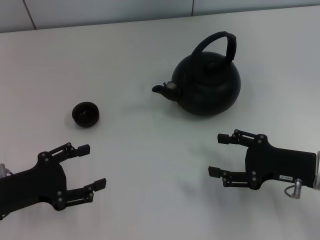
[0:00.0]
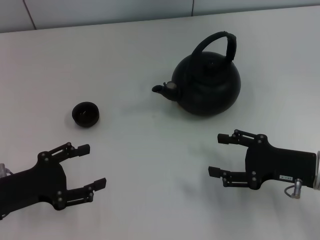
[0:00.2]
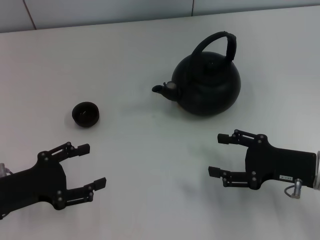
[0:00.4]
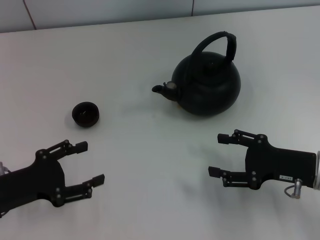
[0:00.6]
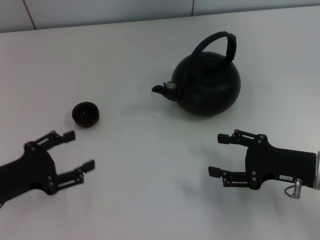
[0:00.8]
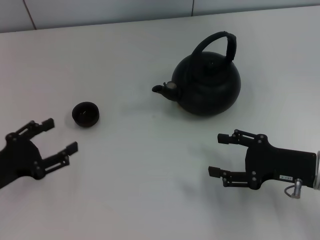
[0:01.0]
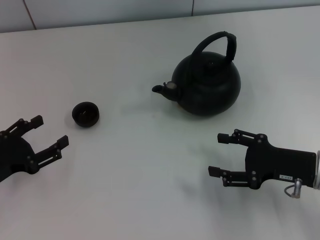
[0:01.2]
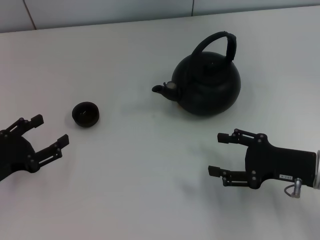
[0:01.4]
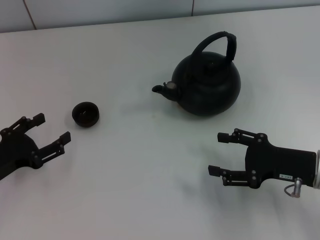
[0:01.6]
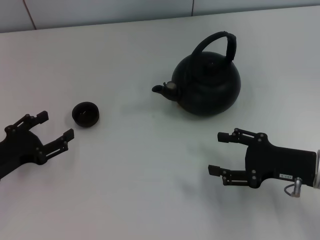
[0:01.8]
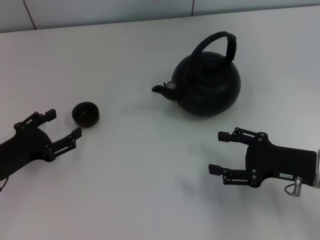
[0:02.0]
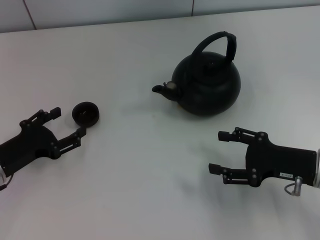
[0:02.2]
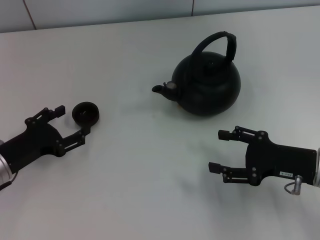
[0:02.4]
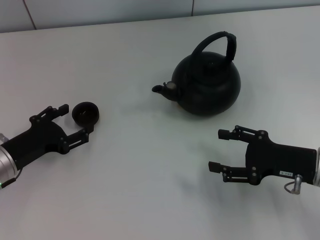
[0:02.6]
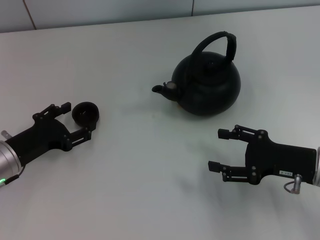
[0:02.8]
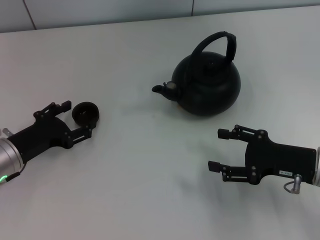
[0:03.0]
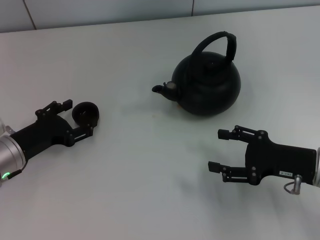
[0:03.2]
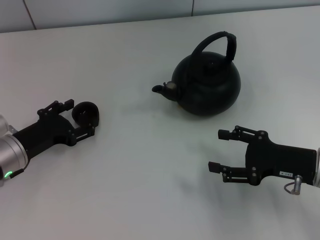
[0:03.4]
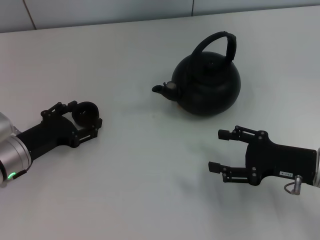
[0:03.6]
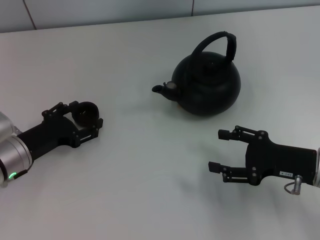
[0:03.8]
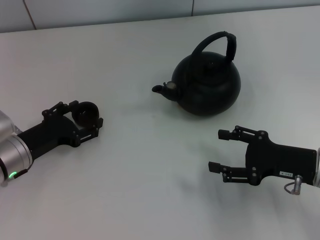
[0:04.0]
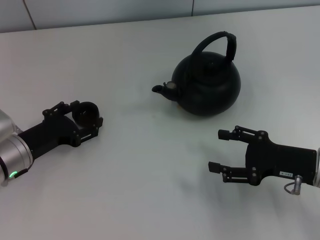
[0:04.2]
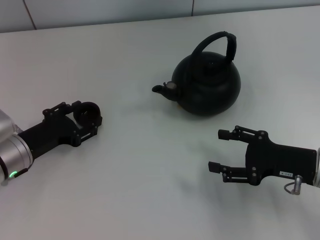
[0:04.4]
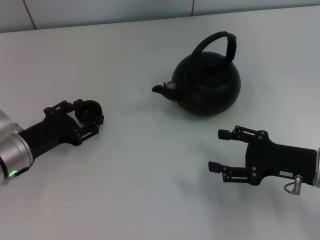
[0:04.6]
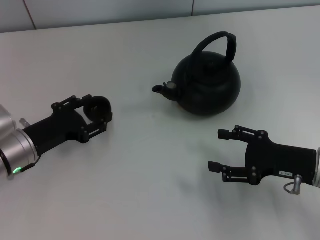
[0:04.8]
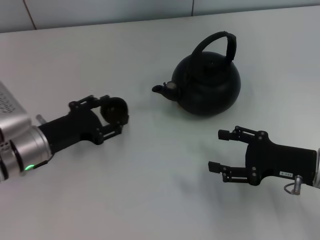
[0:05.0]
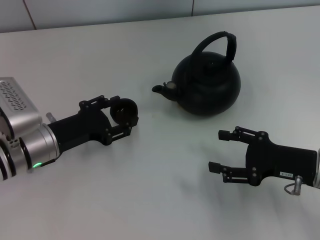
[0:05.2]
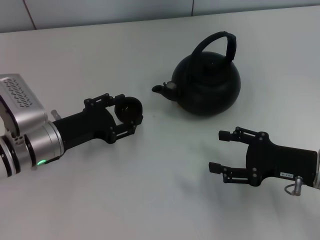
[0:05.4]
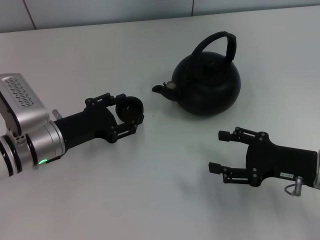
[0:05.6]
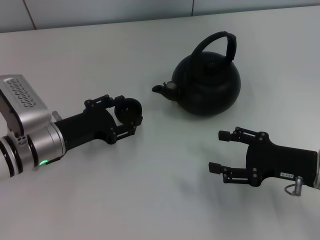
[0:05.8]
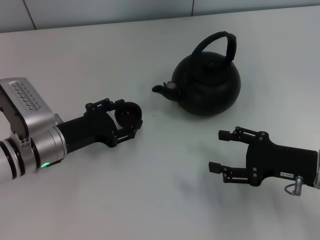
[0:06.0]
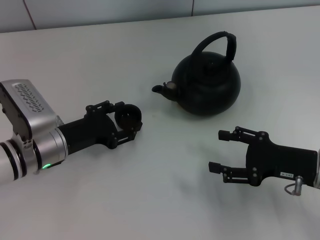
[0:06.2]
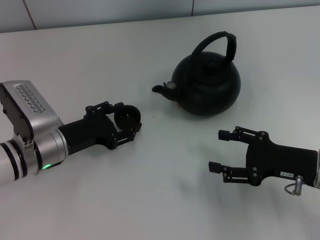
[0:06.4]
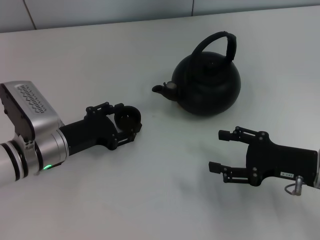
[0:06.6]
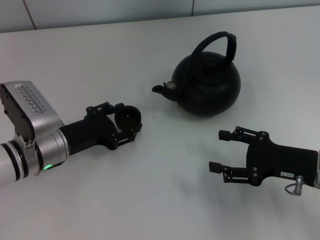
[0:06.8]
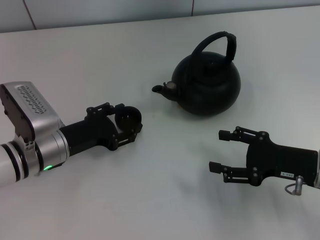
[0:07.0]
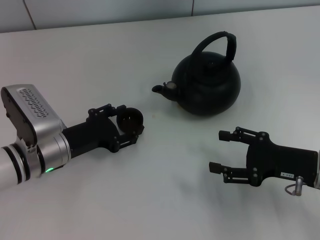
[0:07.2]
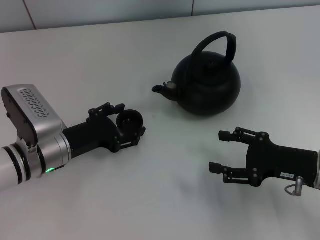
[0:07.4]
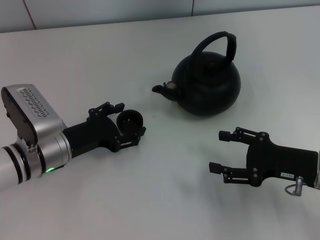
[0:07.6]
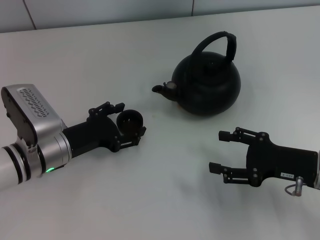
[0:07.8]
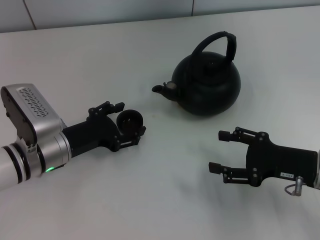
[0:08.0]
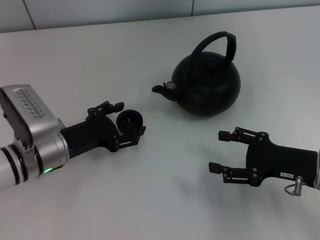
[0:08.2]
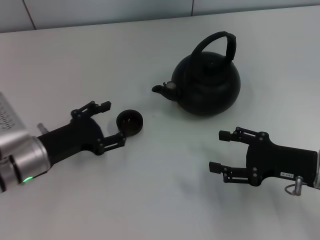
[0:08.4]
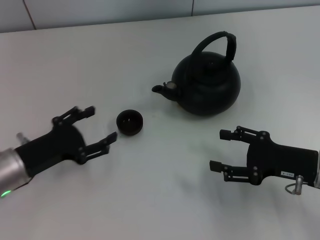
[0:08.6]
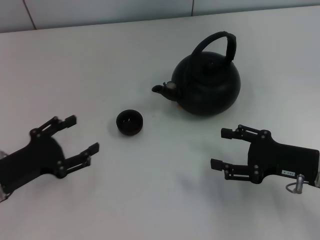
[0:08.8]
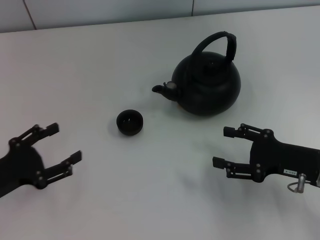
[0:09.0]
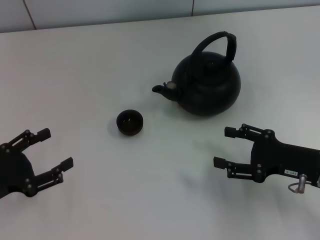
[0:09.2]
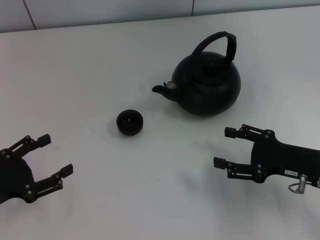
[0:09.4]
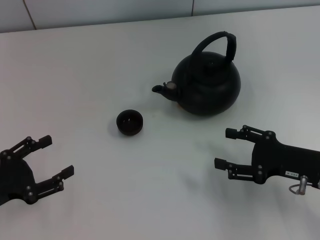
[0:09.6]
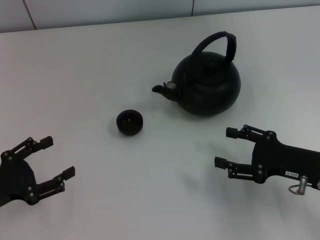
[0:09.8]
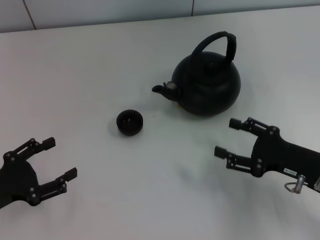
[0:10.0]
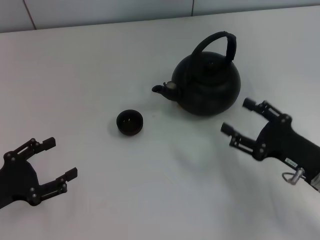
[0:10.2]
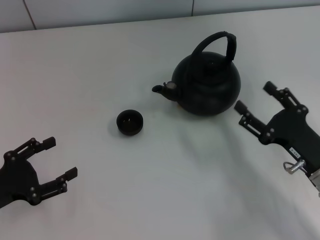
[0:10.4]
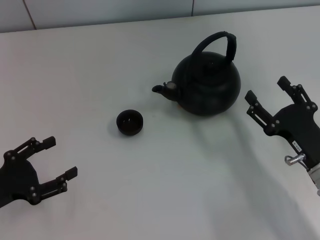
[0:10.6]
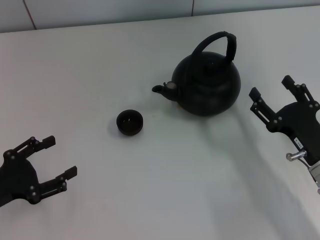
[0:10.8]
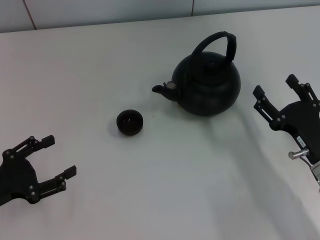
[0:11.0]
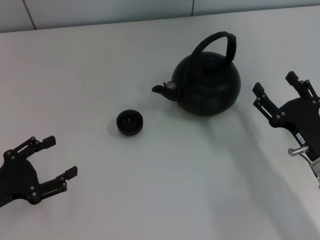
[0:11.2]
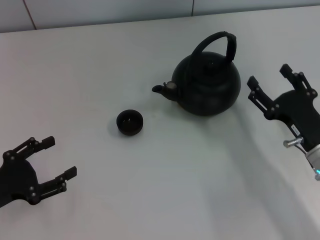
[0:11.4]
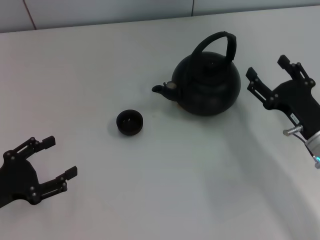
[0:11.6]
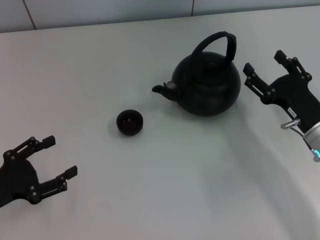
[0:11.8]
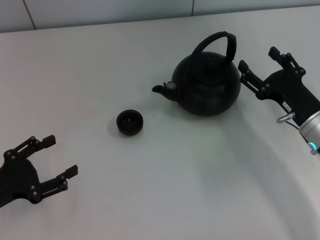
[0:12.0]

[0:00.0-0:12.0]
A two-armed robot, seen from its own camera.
Task of the whole recording: Grasp the handle of the teapot with one hand and pour tea into the teacup.
Step, 0:00.0 to 0:04.6: Pick up the teacup with the left gripper.
Step, 0:04.8 to 0:08.4: Place the teacup in the center of view with the left gripper.
0:01.6 to 0:03.0: The left gripper shifts by roughly 5 cm.
0:03.0 to 0:04.4: The left gripper closes its fingers.
0:04.4 to 0:06.0: The left gripper moves to the right, approximately 5 cm.
0:06.0 to 0:07.6: The left gripper opens up.
0:07.6 to 0:09.0: The left gripper is displaced to the left and backward by roughly 15 cm, and opens up.
0:10.4 to 0:12.0: The right gripper is displaced forward by about 5 cm.

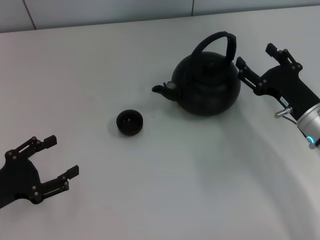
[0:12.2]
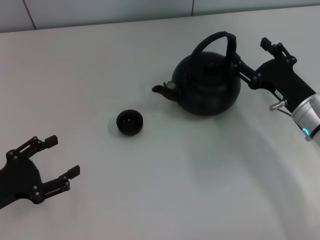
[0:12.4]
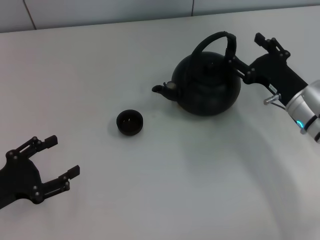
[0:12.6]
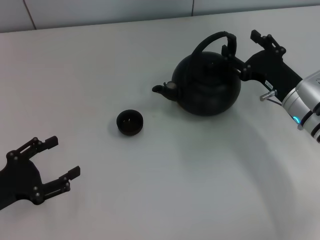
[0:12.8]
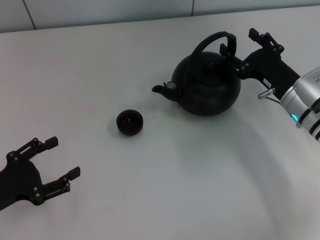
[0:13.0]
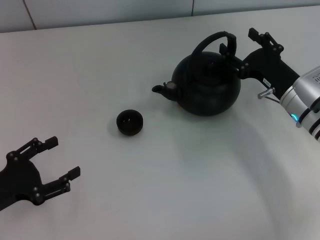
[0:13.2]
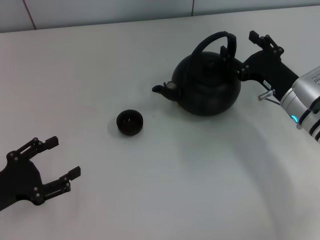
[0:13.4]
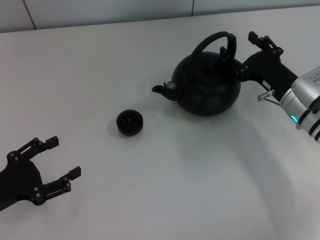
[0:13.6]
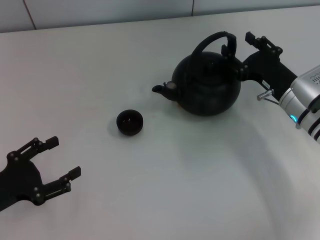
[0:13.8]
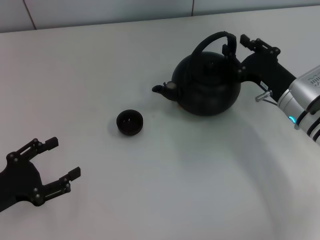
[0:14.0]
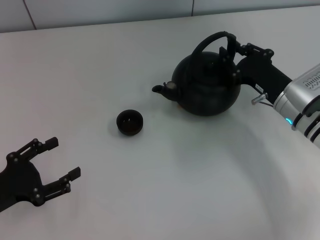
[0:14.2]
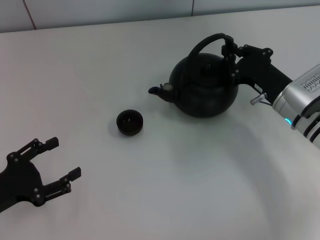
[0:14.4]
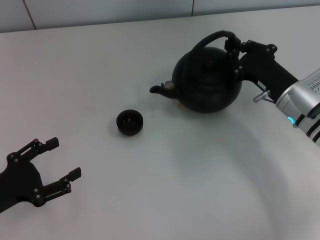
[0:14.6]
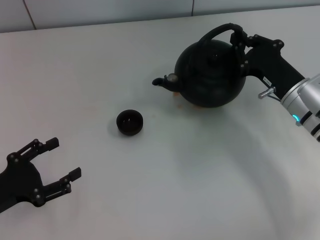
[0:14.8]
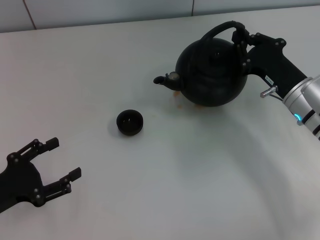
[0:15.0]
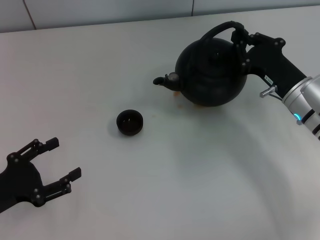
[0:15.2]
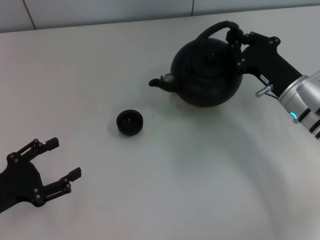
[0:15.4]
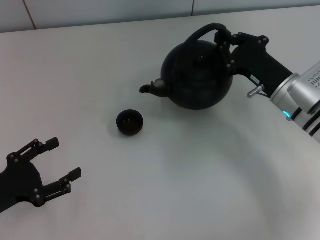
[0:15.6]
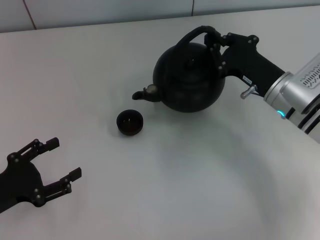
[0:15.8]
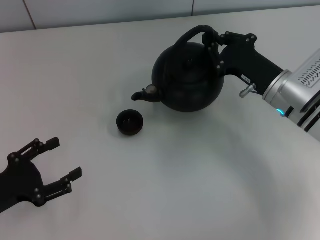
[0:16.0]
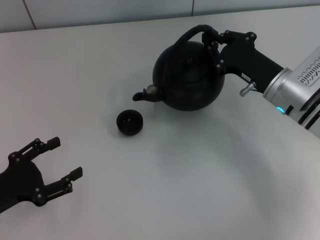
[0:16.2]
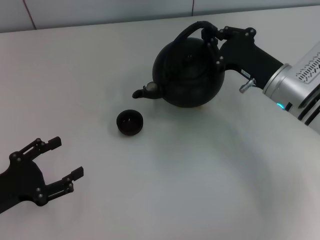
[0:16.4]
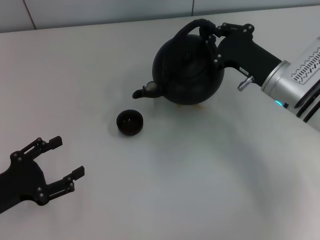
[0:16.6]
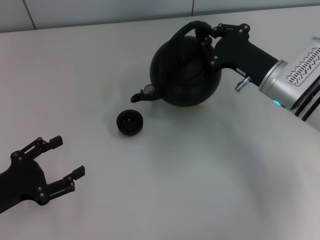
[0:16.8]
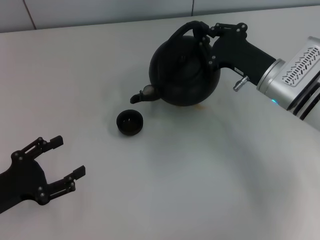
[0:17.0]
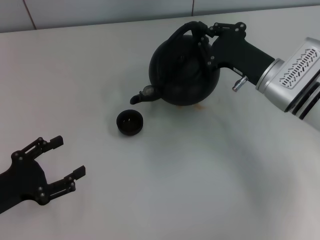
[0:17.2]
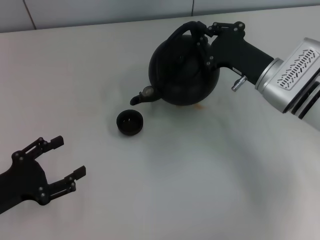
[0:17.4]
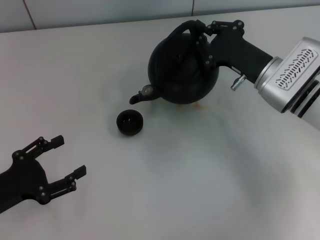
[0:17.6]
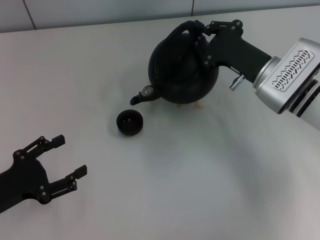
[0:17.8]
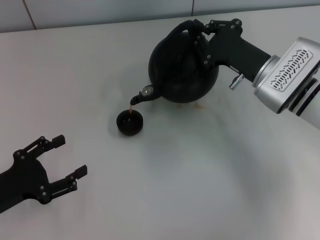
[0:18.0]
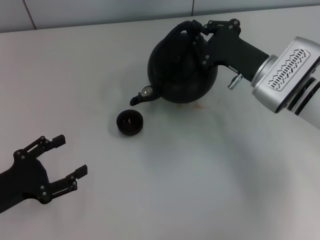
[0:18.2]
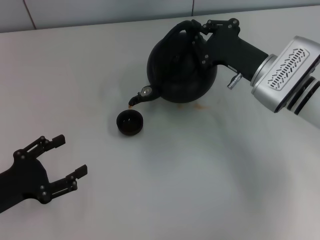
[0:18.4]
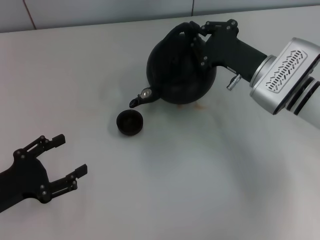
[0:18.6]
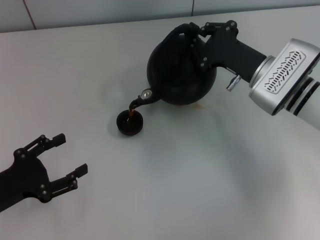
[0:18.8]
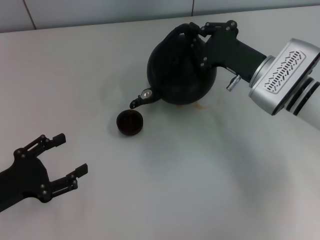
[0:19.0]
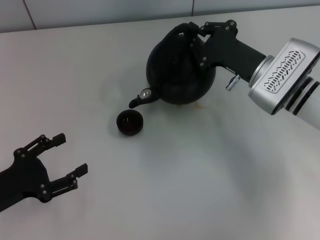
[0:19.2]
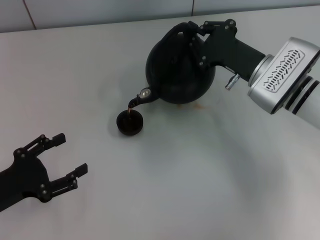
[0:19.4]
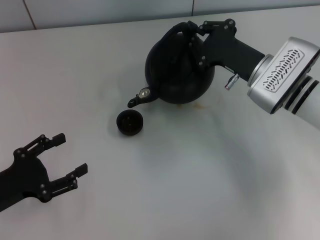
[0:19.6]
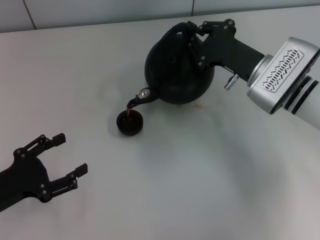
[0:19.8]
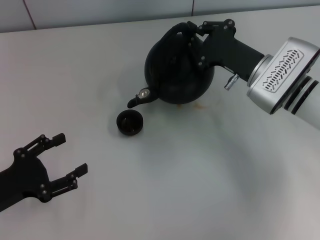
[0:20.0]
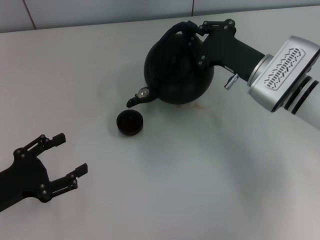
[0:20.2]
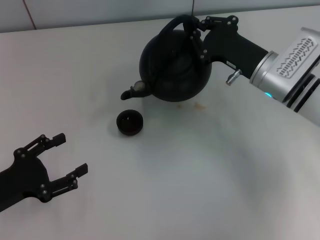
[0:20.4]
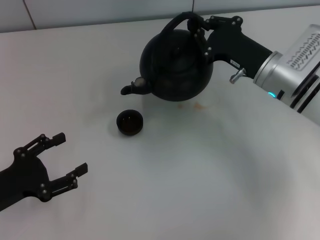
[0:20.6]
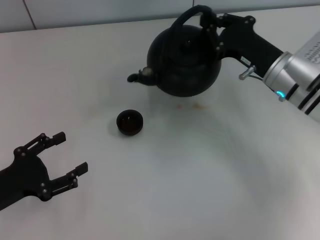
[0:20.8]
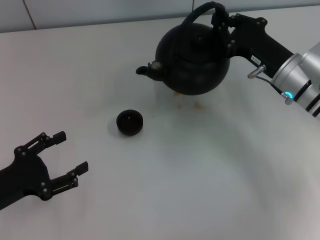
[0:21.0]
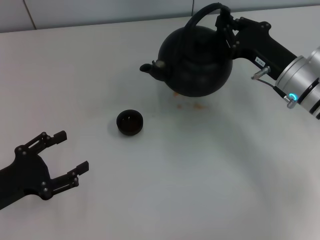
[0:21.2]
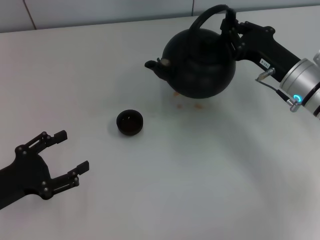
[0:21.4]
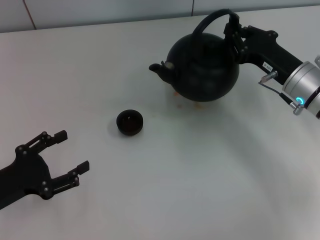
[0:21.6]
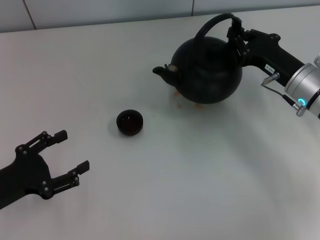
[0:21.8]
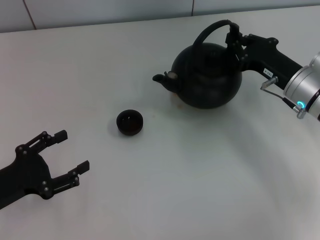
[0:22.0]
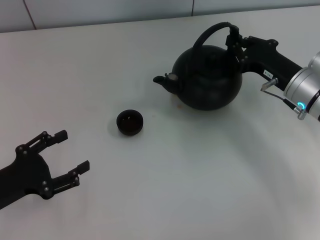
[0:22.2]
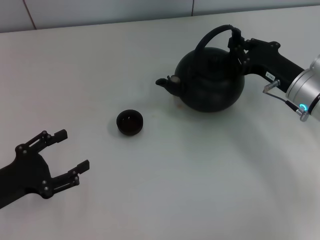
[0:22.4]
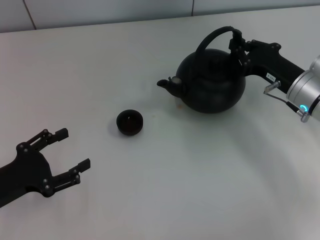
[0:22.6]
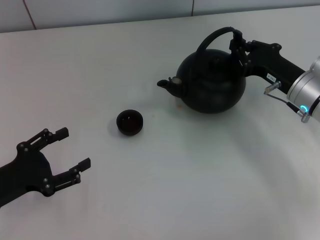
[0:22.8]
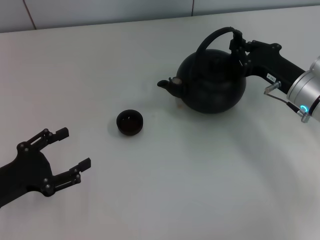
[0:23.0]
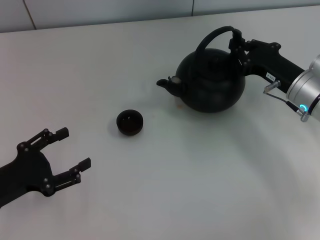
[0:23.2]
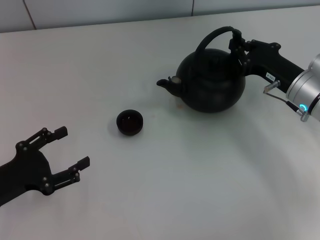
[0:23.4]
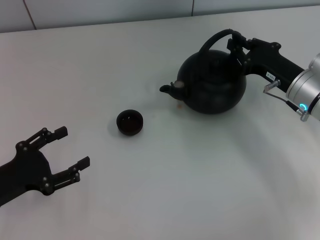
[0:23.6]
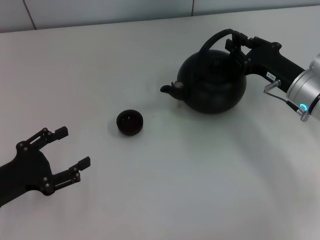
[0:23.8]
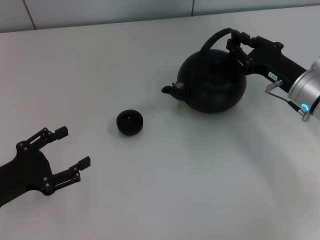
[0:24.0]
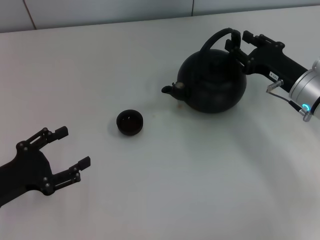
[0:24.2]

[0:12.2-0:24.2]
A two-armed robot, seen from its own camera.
Task of the whole recording: Grasp the handle of the teapot with one hand and pour tea into the teacup.
Step, 0:12.2 to 0:15.0: Pick up the teapot with the right gripper.
0:12.2 to 0:13.8: The grippers move only a little.
0:13.8 to 0:15.2: The right gripper closes.
0:15.2 to 0:16.6: The grippers stay close to where they were, moving slightly.
0:16.6 to 0:18.2: The grippers make only small movements.
0:18.2 to 0:19.8: Neither gripper changes place.
0:21.2 to 0:22.6: The grippers make only small movements.
0:22.6 to 0:24.2: The two grippers keep their place.
